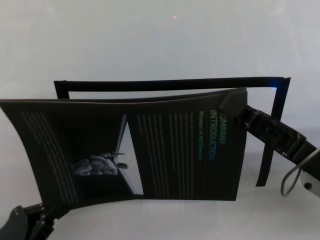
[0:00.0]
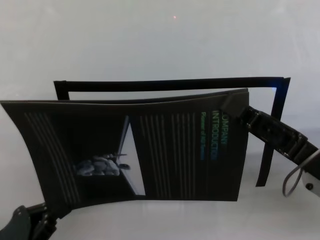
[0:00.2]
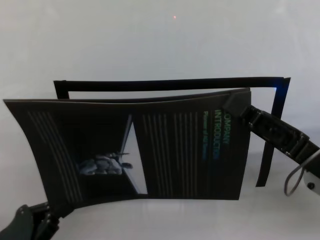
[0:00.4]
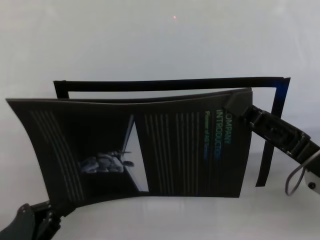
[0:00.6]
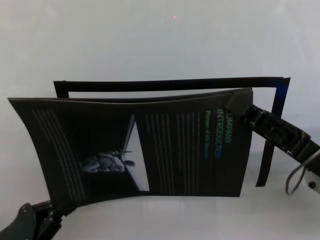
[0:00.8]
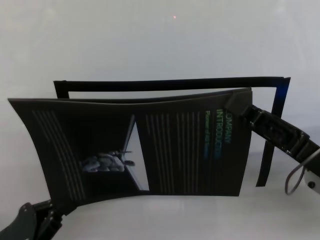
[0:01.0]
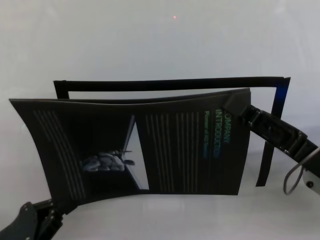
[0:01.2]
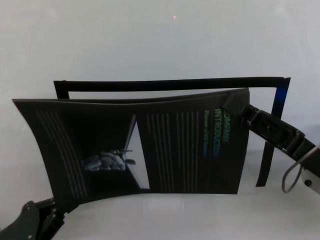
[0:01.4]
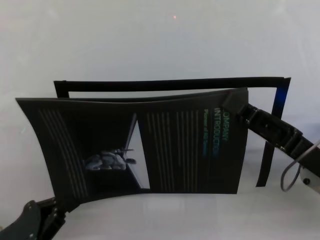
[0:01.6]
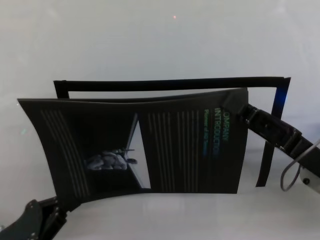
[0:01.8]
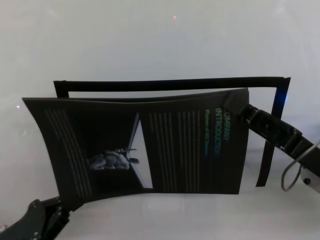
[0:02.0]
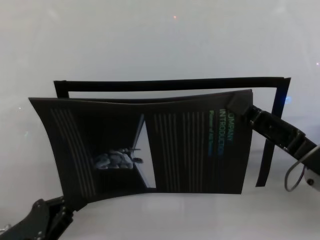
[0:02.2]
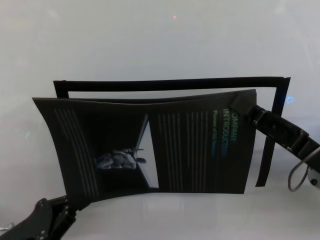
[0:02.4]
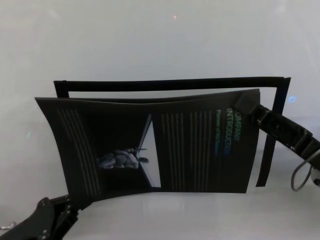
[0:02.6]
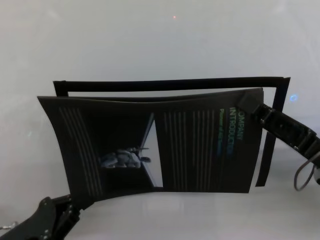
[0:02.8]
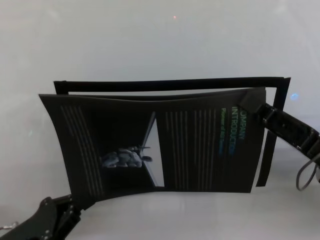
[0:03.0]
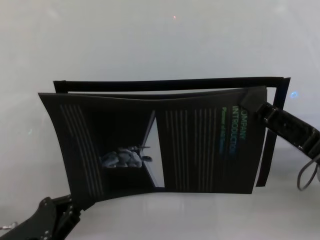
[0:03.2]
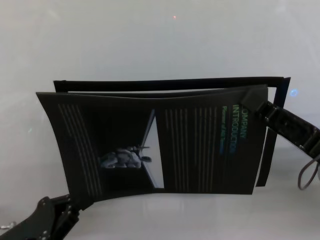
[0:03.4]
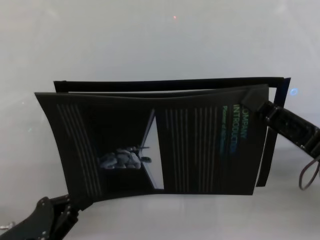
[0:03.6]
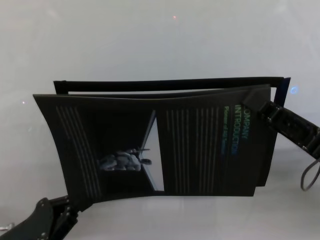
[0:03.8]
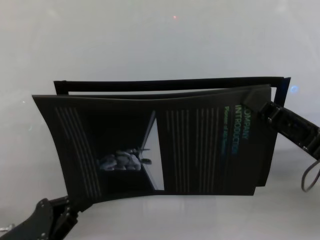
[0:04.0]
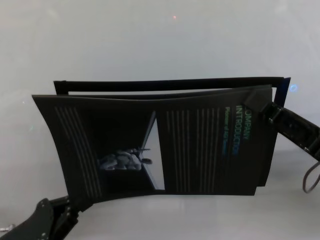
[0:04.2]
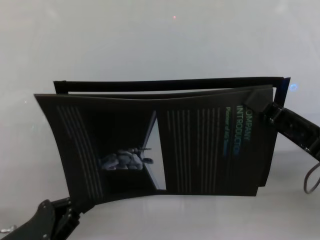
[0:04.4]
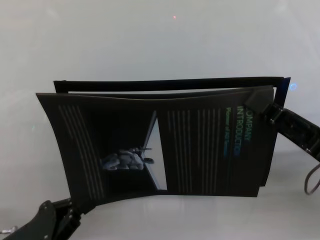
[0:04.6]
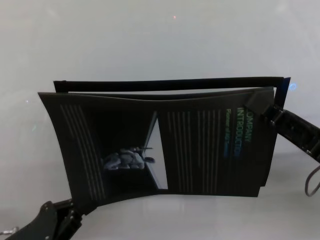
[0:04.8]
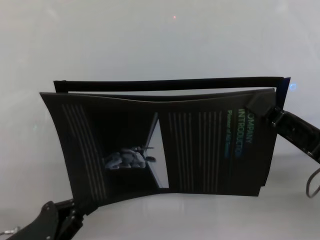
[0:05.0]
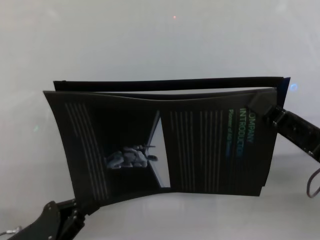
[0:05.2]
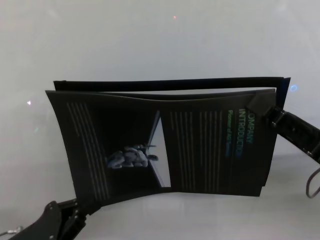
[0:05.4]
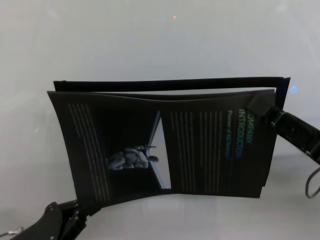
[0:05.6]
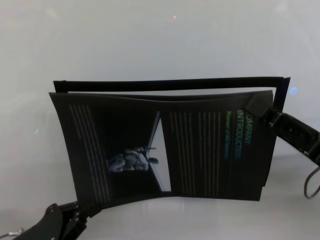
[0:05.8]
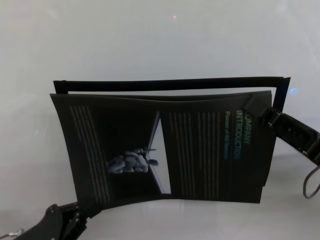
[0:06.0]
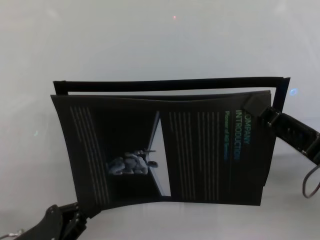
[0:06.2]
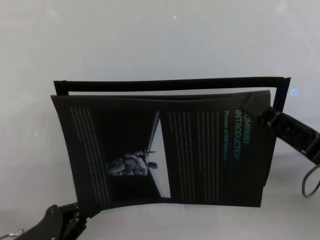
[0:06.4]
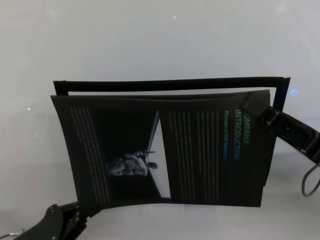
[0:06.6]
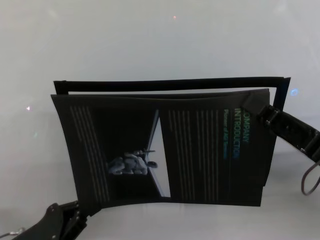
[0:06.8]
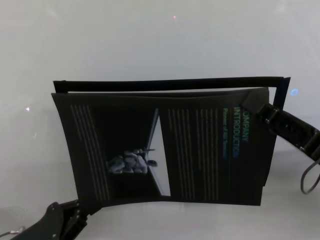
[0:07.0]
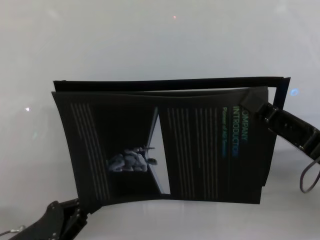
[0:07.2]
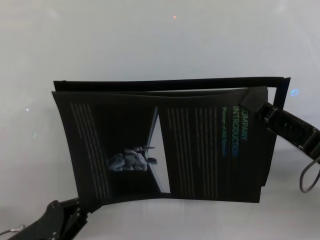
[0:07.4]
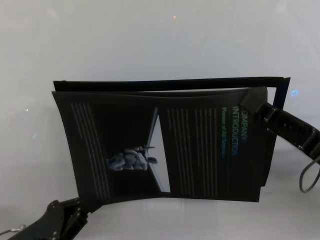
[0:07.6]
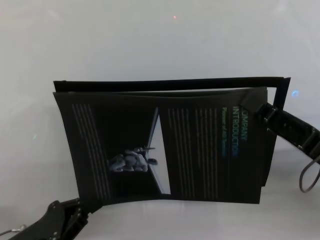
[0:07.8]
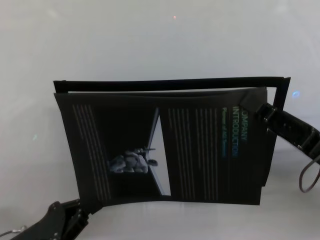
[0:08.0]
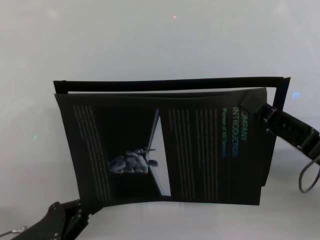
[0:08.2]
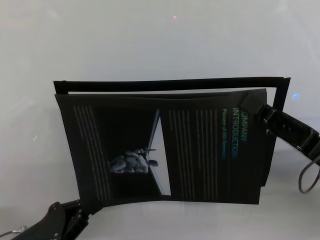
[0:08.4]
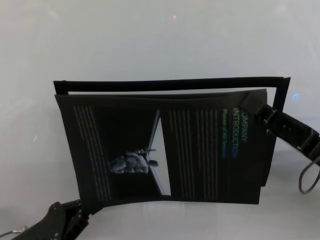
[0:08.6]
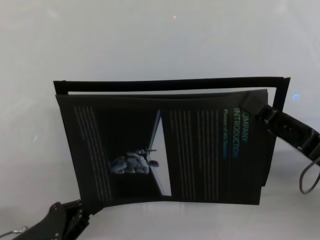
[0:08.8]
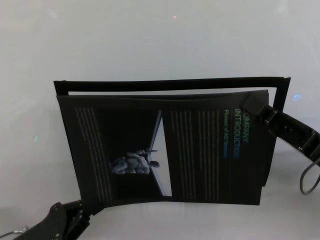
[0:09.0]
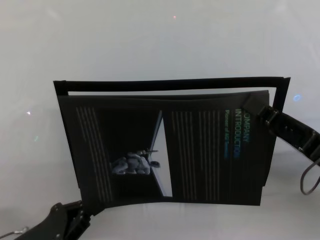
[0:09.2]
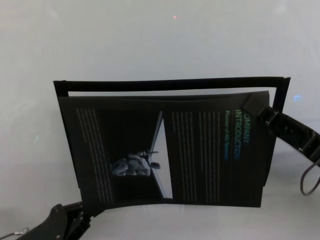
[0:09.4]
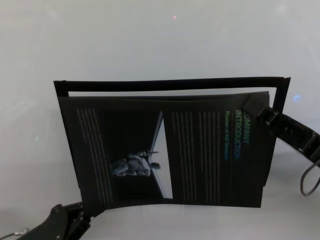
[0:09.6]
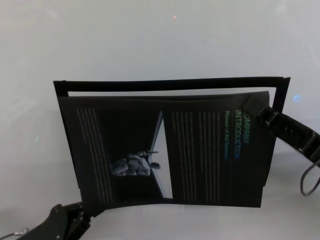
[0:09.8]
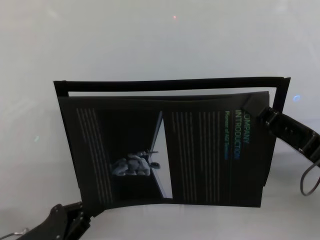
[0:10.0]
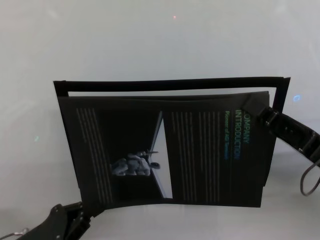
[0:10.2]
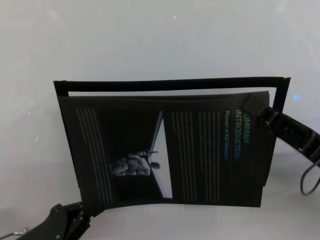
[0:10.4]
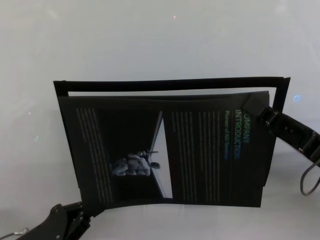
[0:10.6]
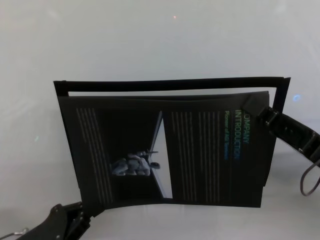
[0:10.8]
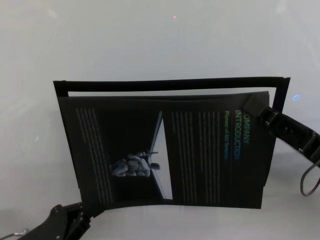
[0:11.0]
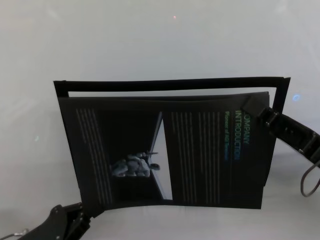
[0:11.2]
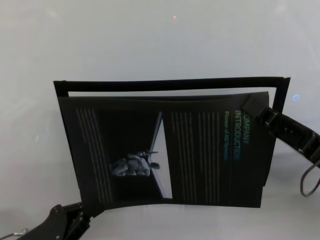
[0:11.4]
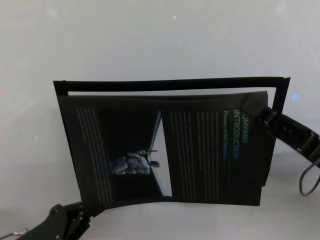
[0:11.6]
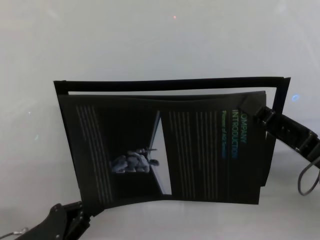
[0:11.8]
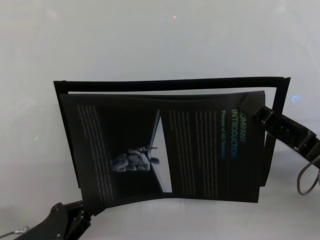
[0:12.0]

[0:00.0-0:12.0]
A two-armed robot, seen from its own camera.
Task of the whole recording: stick the poster on the table by hand.
Step, 0:00.0 to 0:10.6: Stick the advertisement in the top-right corner area with both grippers.

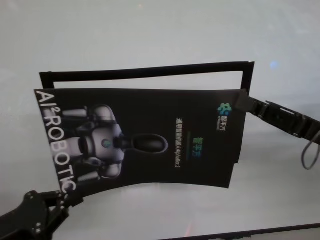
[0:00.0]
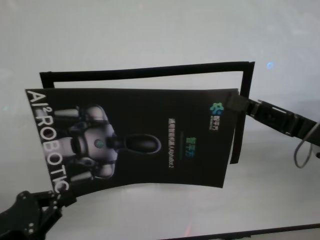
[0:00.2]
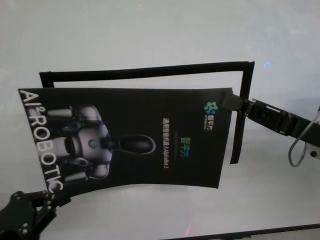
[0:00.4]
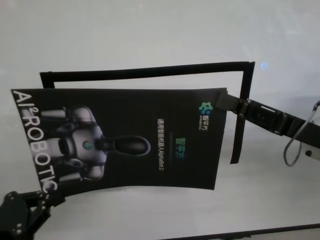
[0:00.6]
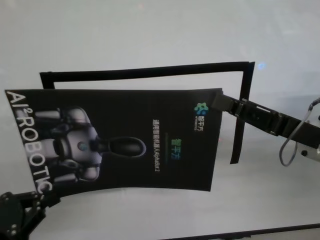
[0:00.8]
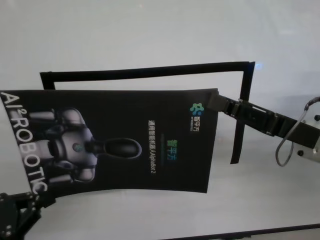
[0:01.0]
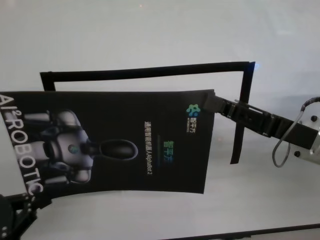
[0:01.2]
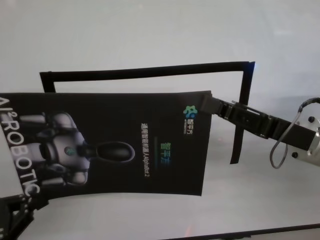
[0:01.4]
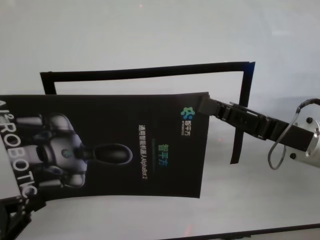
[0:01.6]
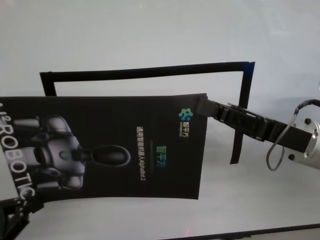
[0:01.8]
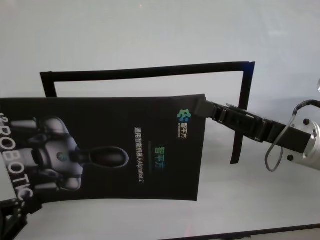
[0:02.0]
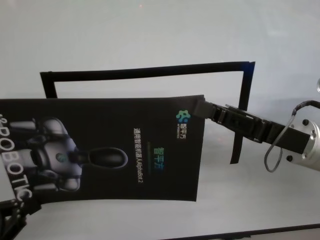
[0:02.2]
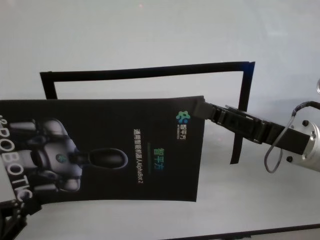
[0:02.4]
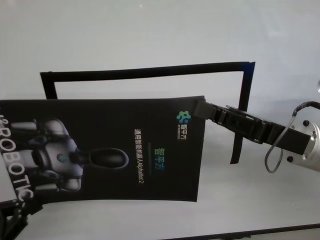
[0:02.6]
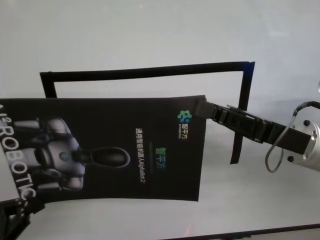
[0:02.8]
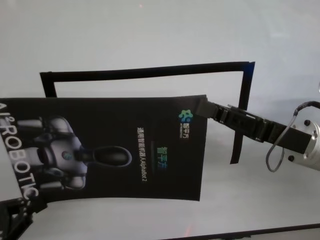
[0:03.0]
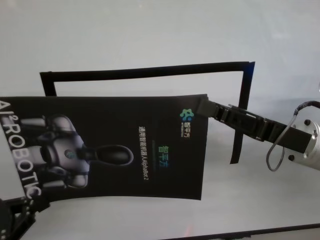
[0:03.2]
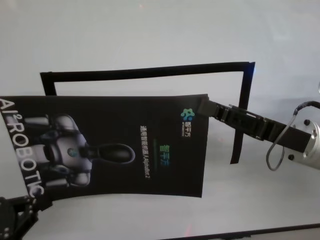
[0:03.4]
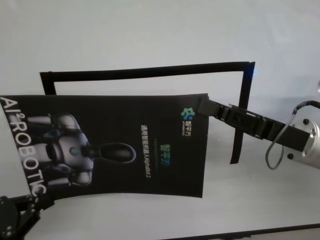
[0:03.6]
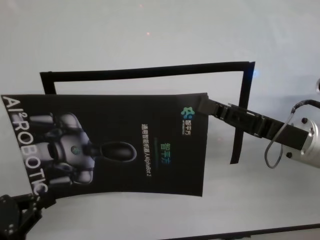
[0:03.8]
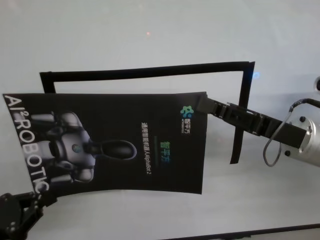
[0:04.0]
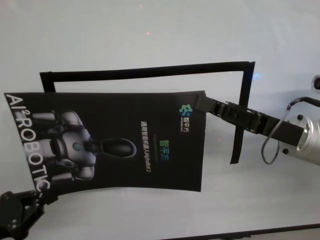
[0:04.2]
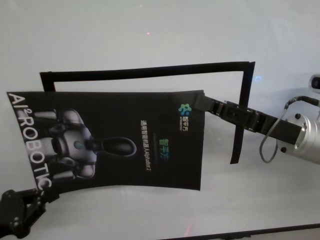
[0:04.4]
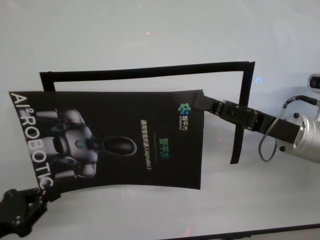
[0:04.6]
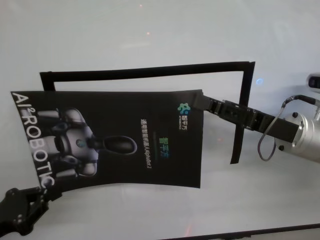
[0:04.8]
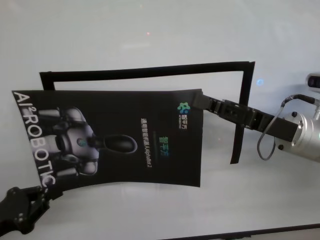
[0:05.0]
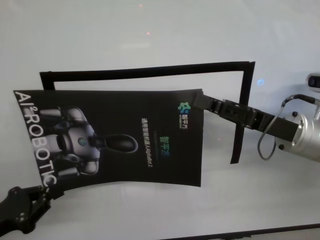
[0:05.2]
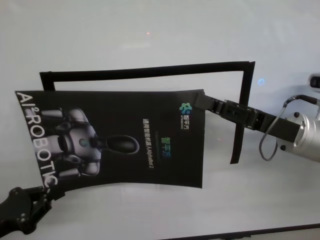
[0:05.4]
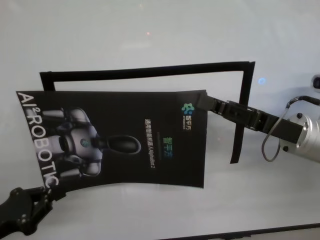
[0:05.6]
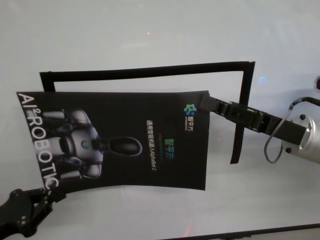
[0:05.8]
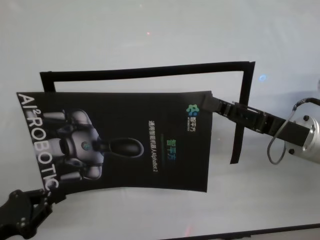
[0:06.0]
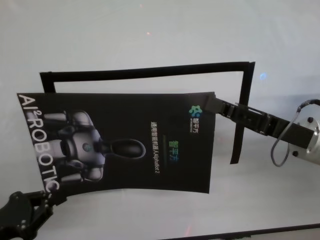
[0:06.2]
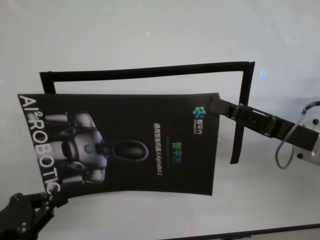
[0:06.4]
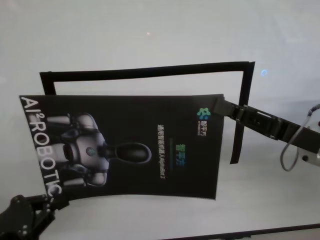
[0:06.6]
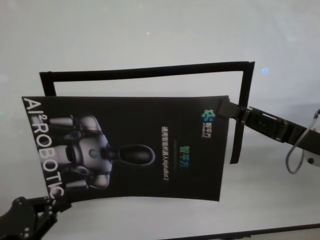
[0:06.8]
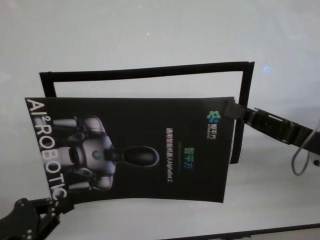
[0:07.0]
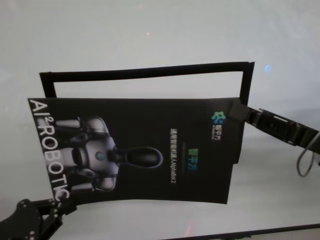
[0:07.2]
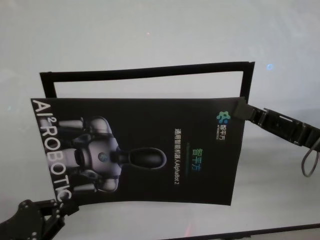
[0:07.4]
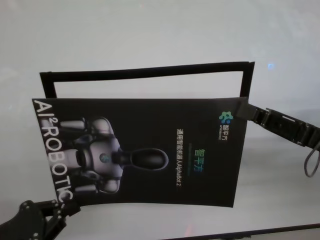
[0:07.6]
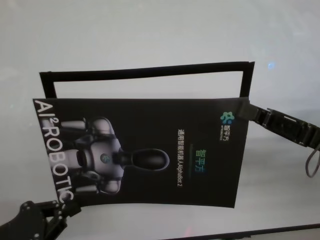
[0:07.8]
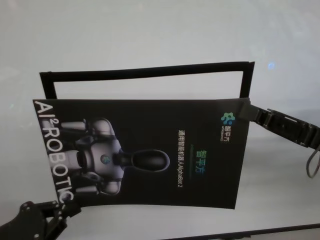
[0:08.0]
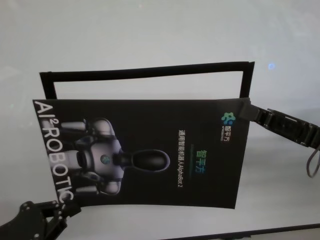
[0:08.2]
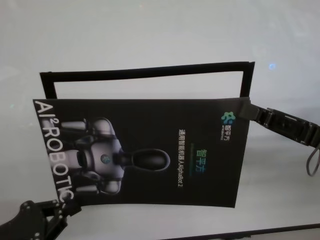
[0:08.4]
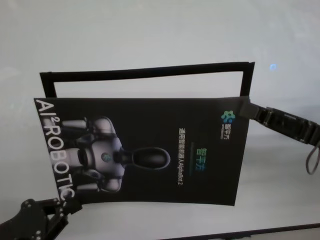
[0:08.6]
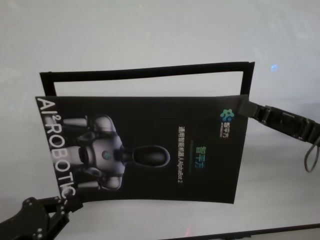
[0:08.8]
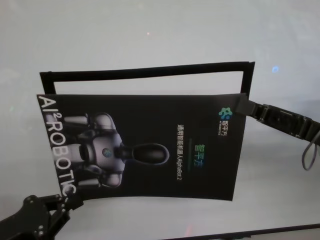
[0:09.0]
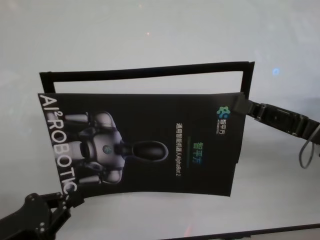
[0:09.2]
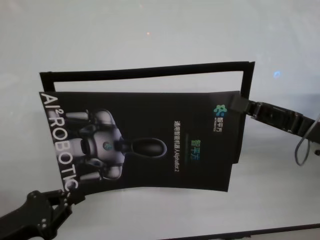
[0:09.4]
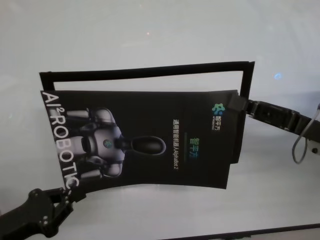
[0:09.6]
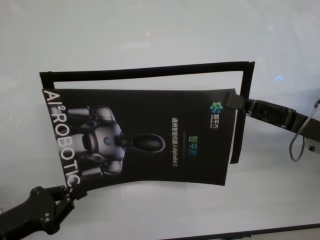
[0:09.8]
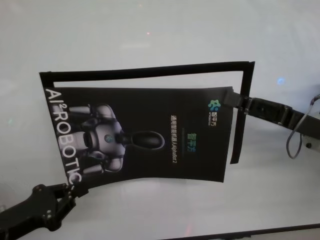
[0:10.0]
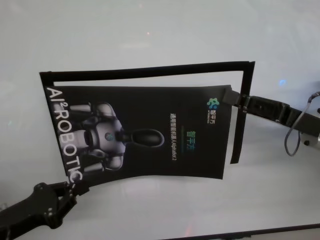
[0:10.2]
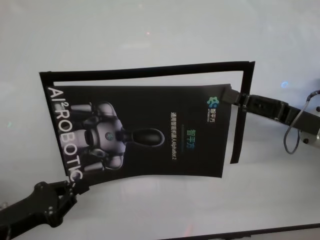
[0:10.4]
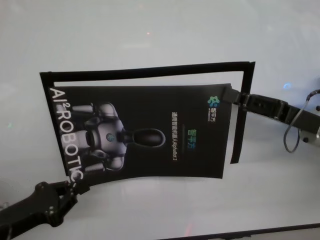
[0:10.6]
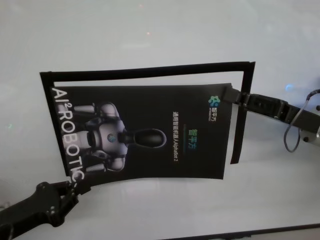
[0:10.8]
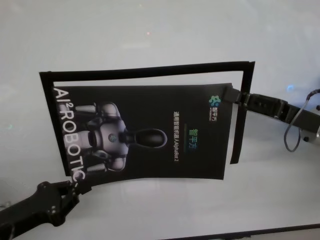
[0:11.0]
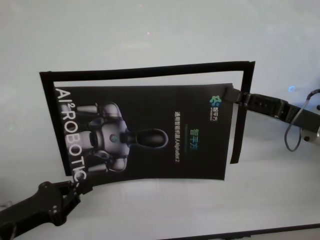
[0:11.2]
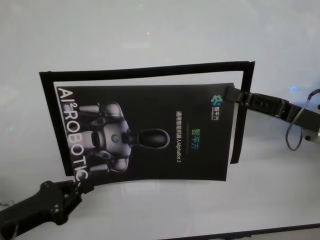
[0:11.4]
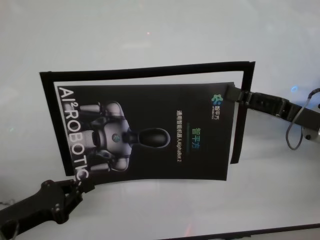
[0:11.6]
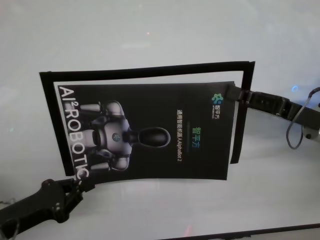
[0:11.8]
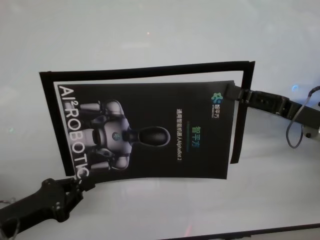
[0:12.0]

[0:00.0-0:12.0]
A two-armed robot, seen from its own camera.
Task of the whole recording: stick the poster on the table by hand.
Step, 0:00.0 to 0:11.6: Stick the advertisement in the top-right corner area with both grippers.
